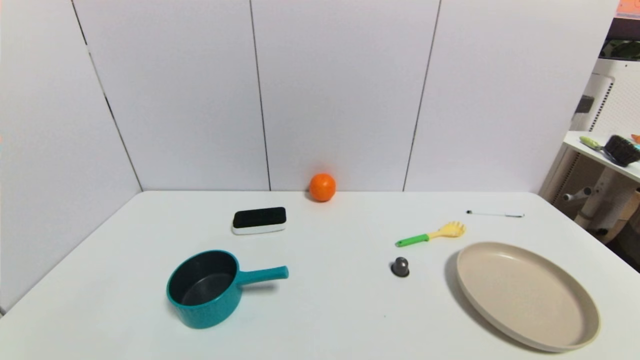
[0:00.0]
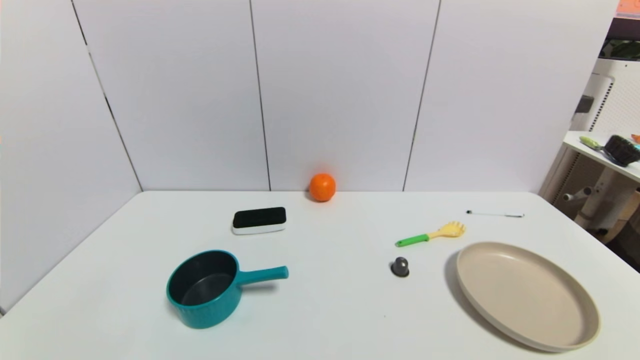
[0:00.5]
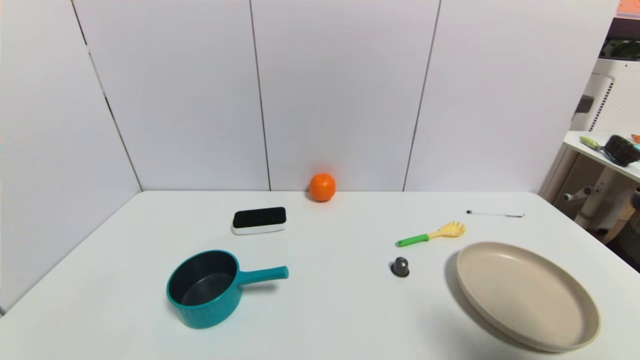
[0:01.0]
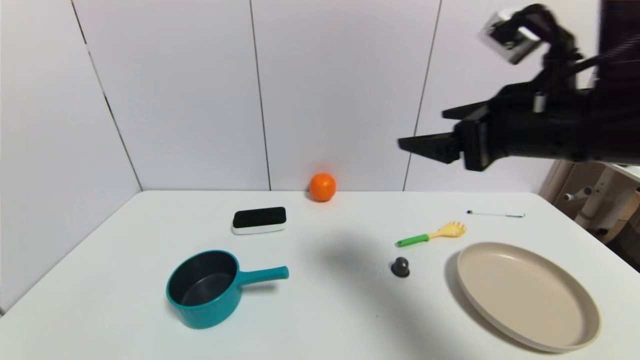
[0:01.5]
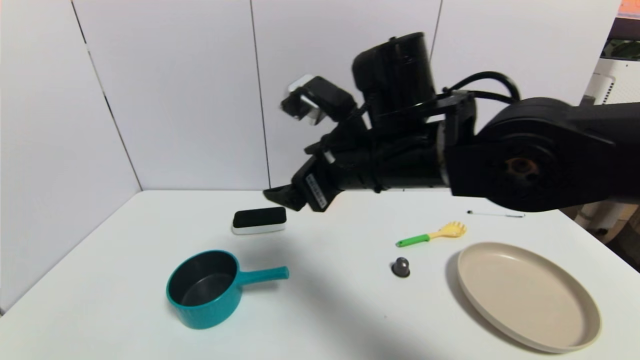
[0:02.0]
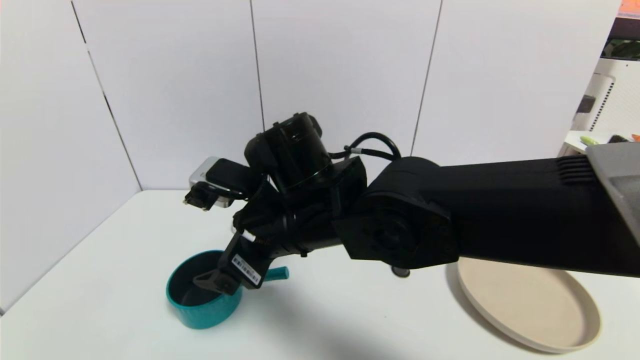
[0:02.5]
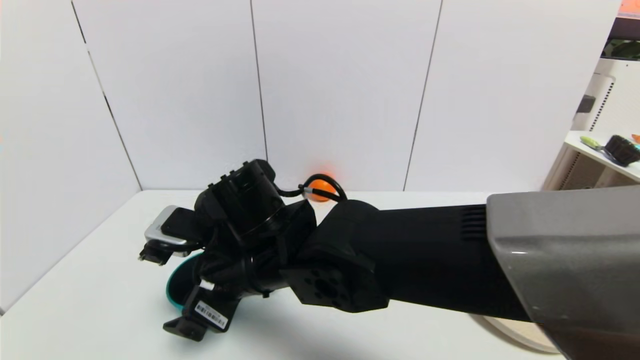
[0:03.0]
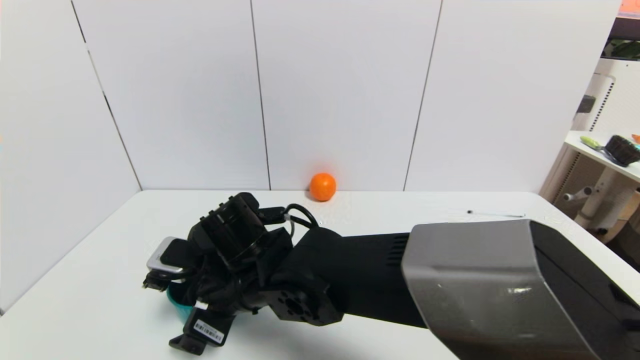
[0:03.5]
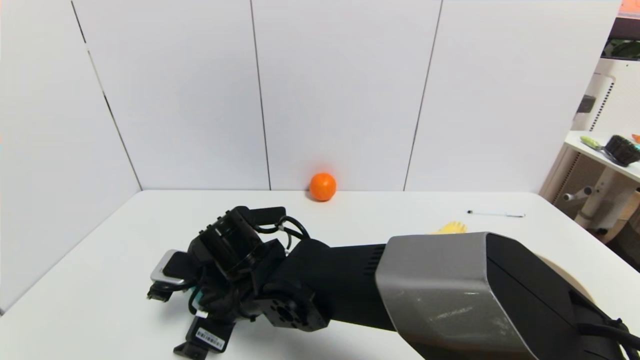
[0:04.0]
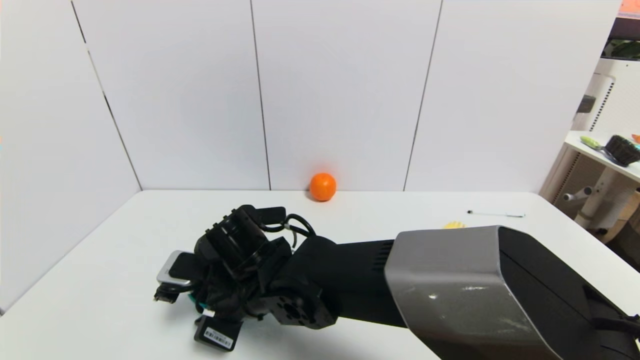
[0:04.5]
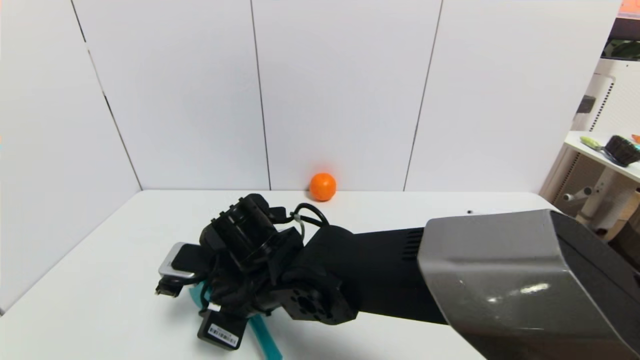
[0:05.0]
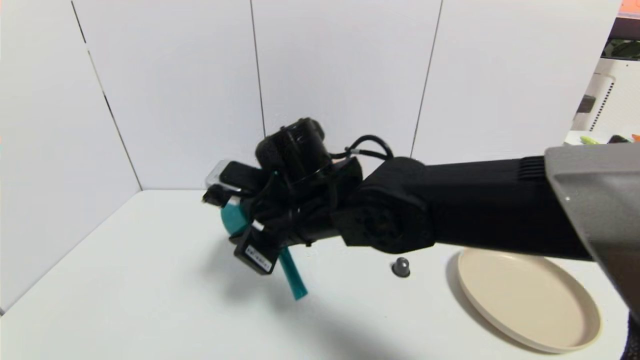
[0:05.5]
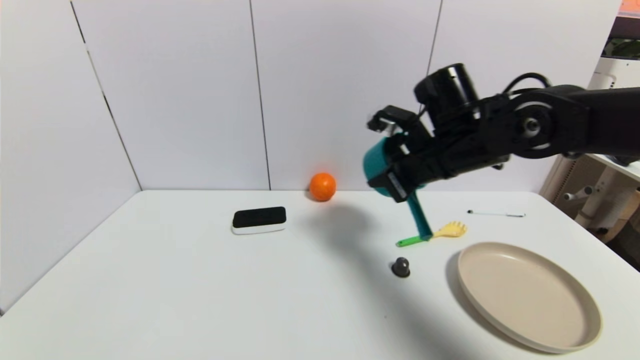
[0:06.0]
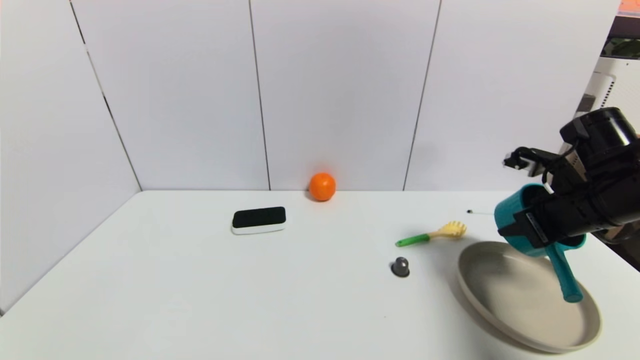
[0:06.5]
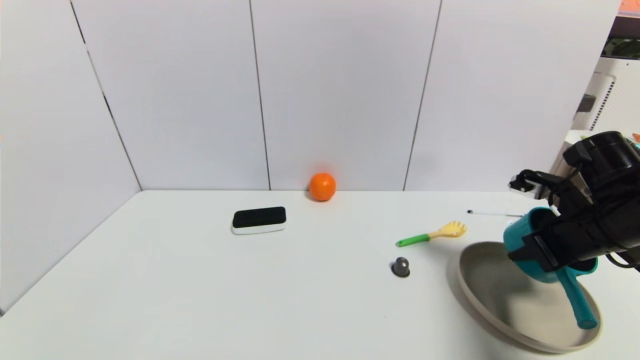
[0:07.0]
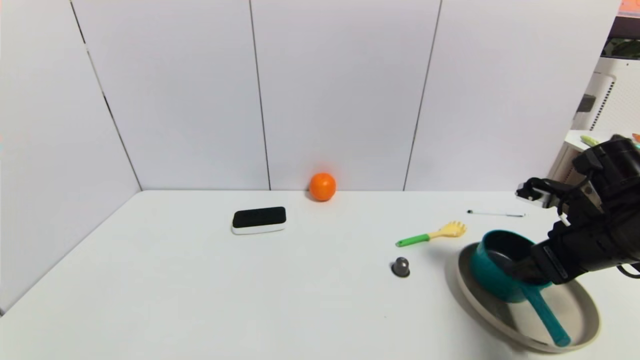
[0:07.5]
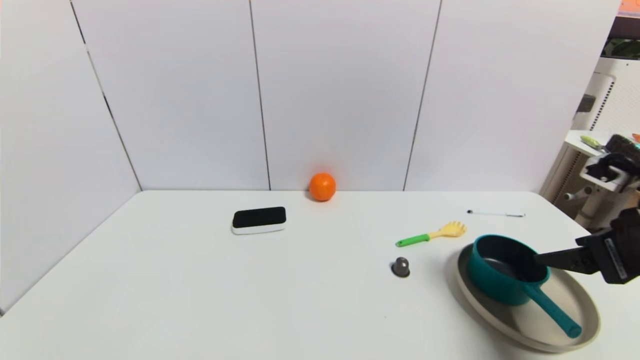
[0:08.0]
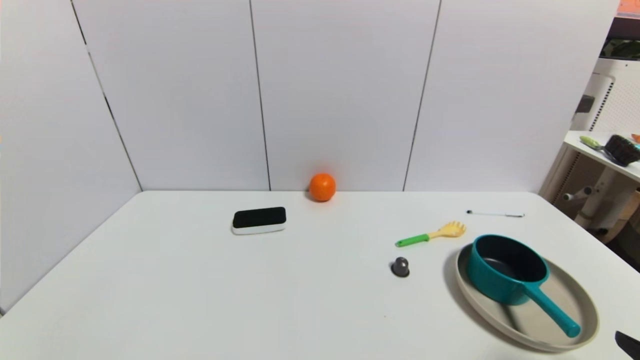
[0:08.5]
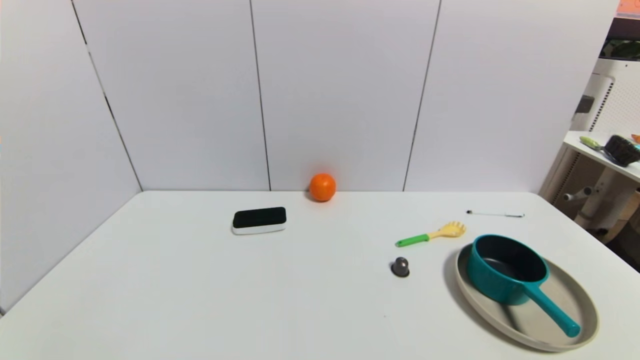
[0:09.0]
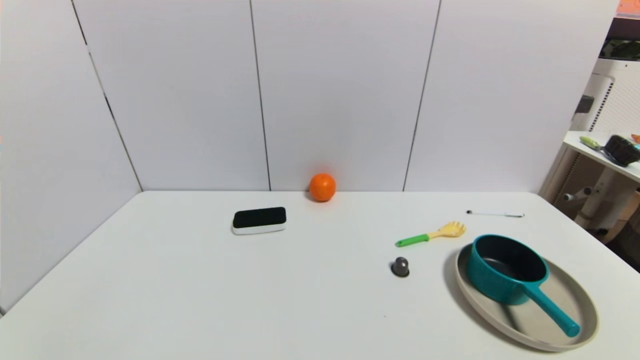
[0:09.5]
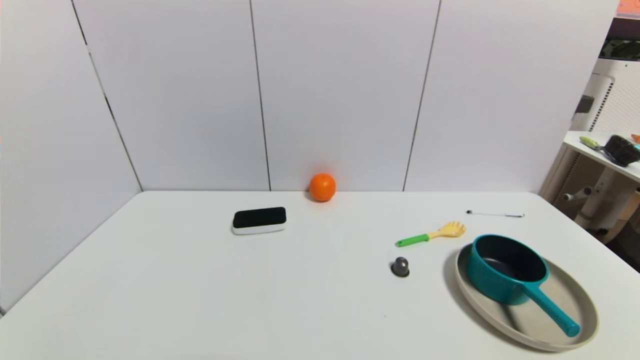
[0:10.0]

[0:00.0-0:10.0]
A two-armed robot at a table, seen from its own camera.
Task of the whole recording: use a gripper to pick the target object and place on the brown plate.
Step, 0:00.0 to 0:04.5: Grasp the blue pot with the right gripper.
Step, 0:05.0 to 0:07.5: Place the blue pot on the brown plate with the right gripper.
0:00.0 to 0:02.0: The right gripper travels to the left, forward and upward by approximately 50 cm.
0:02.0 to 0:04.0: The right gripper travels downward and to the left by about 20 cm.
0:04.0 to 0:06.0: The right gripper is displaced to the right and upward by some 30 cm, and closes.
0:06.0 to 0:08.0: The right gripper heads backward and to the right, covering about 25 cm, and opens up.
0:08.0 to 0:10.0: The right gripper goes roughly 25 cm backward and downward.
